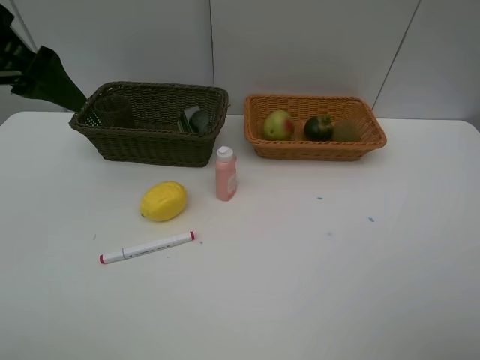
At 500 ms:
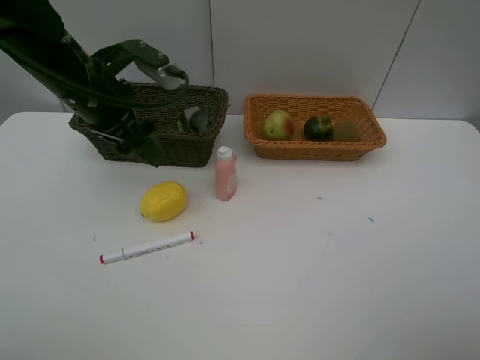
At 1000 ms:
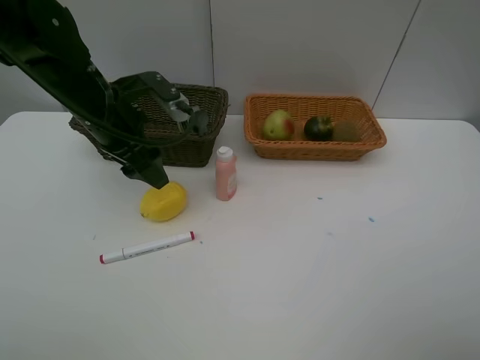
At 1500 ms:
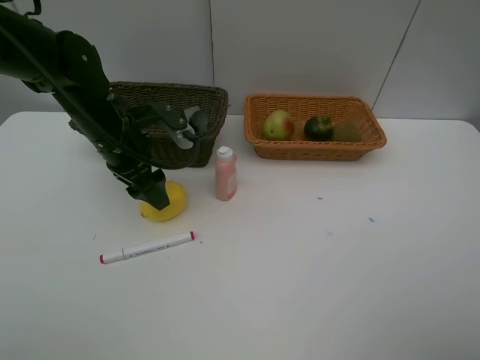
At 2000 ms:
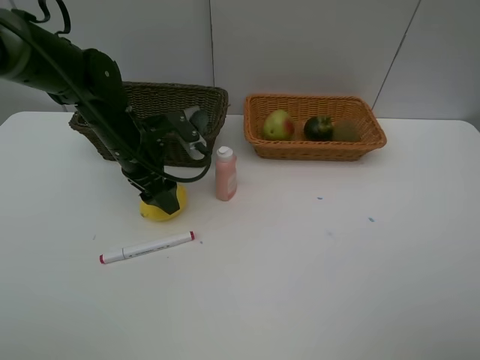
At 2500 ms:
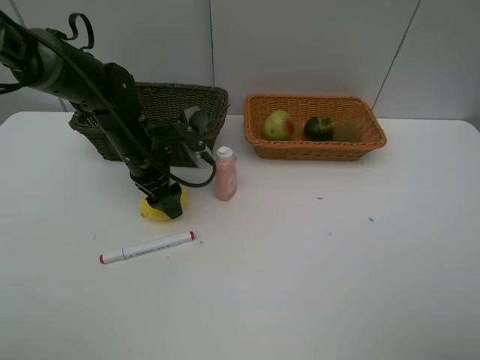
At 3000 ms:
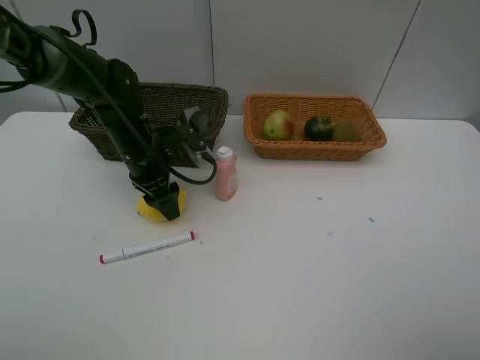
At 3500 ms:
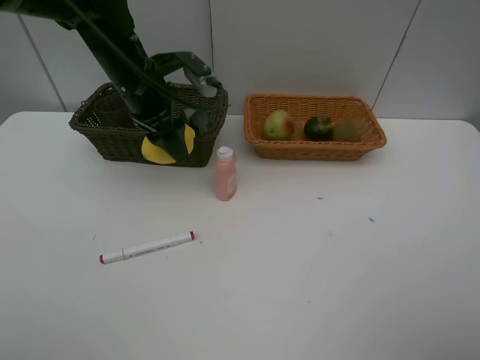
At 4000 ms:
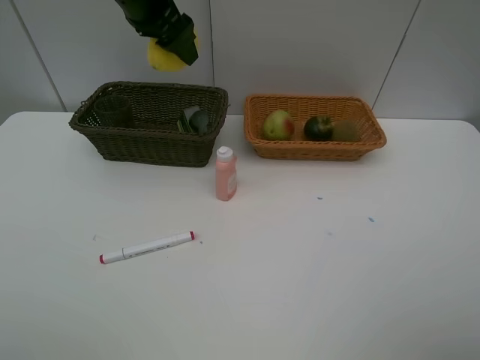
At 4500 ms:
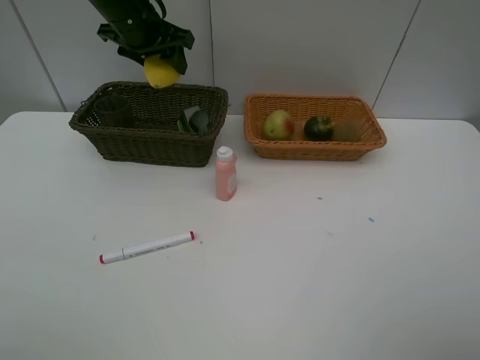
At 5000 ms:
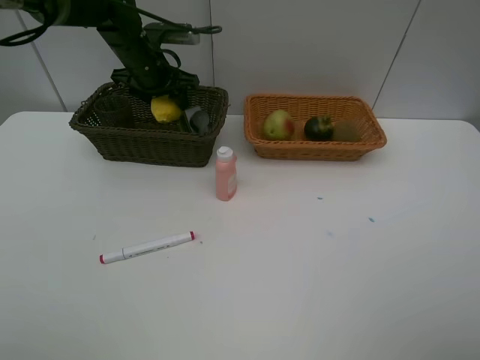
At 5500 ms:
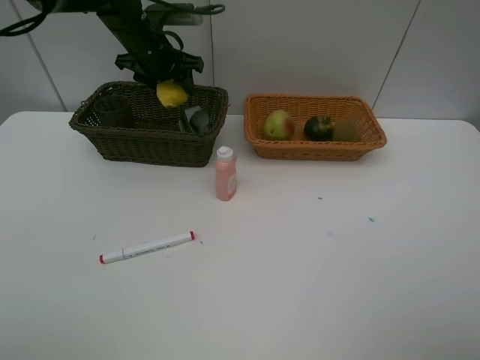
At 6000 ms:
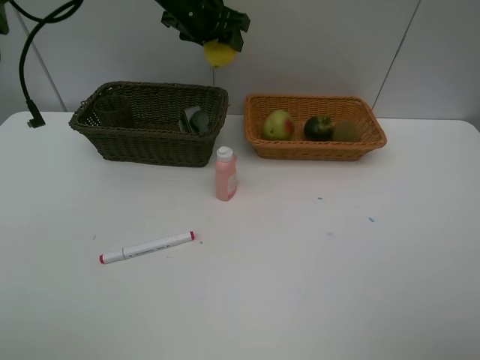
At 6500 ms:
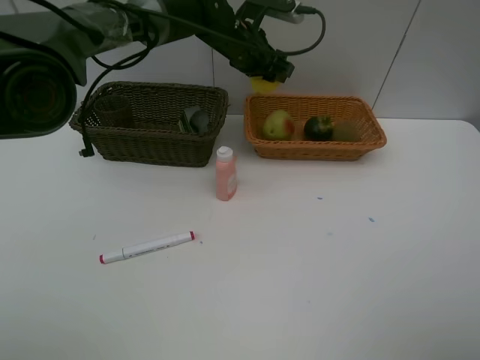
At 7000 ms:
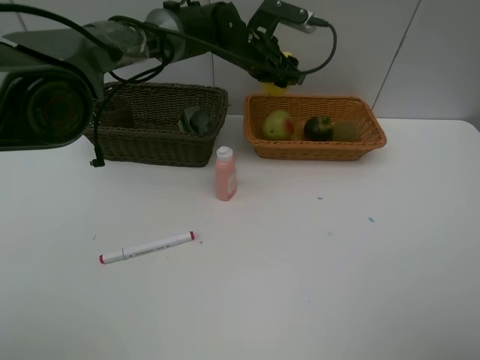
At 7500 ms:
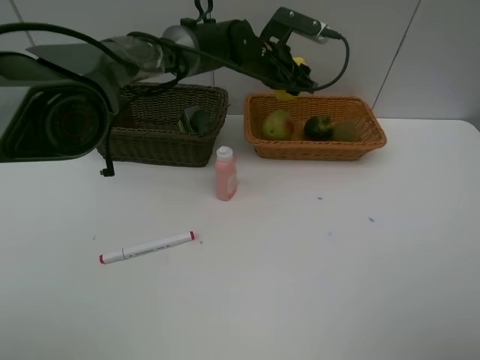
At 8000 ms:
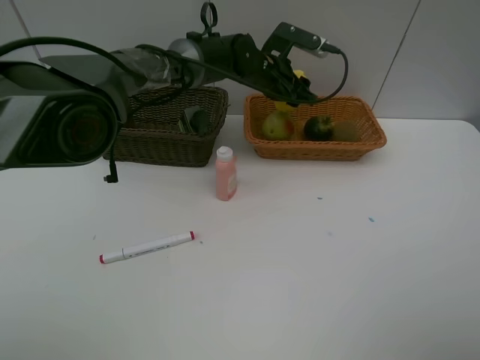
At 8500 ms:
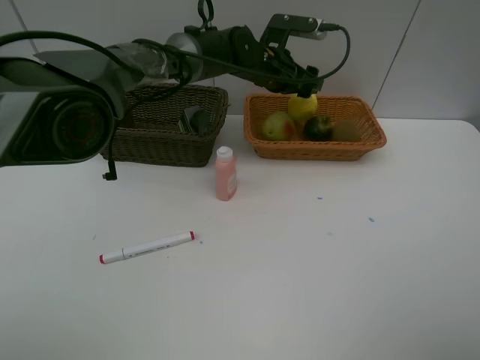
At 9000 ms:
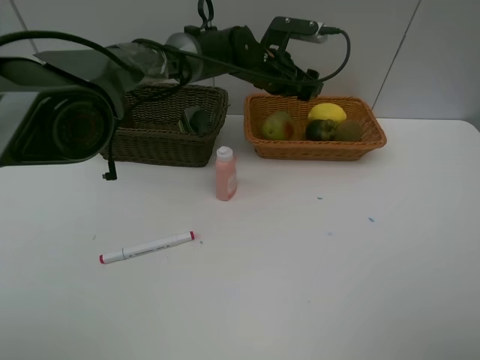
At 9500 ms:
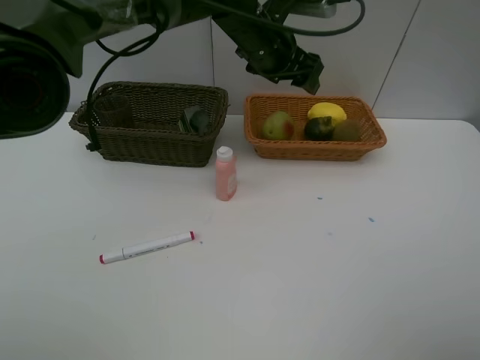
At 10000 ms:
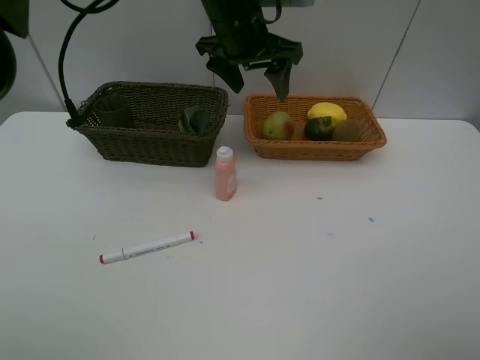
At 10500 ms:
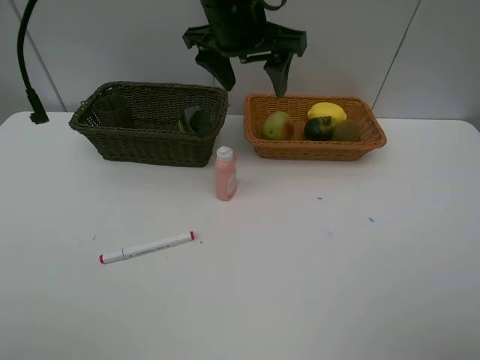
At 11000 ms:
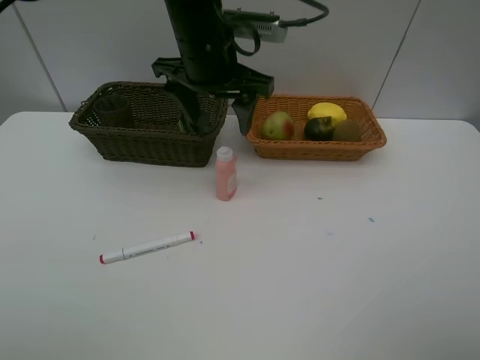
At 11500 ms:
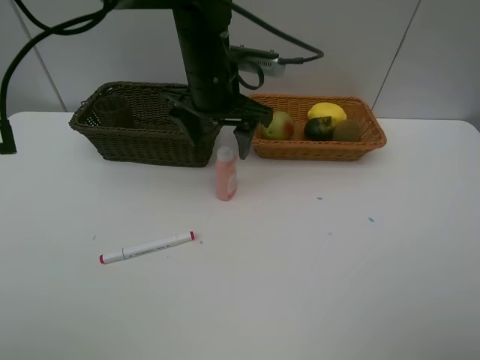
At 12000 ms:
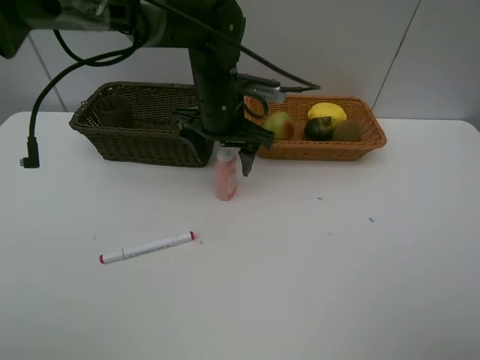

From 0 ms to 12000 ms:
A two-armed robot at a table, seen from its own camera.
Task of the whole recording: Place multiple objects separately in different baskets.
Step, from 0 ms to 3000 ms: Pick up the lemon with left gripper.
Step, from 3500 ms to 9000 ms: Place the lemon in the light basket with left gripper.
From 0 ms to 2000 ms: The left gripper shifts about 20 cm downward and to the right.
From 2000 ms to 4000 ms: The left gripper heads upward and forward, covering roughly 20 cm.
From 4000 ms to 6000 ms: The left gripper heads forward, to the right and downward, covering approximately 10 cm.
From 6000 ms to 8000 ms: The left gripper shifts about 15 cm to the right and downward.
From 8000 ms to 10000 ms: The left gripper is displaced upward and backward by about 15 cm.
From 10000 ms to 12000 ms: The left gripper travels downward by some 10 cm.

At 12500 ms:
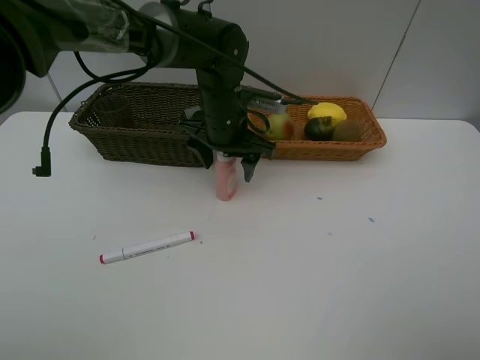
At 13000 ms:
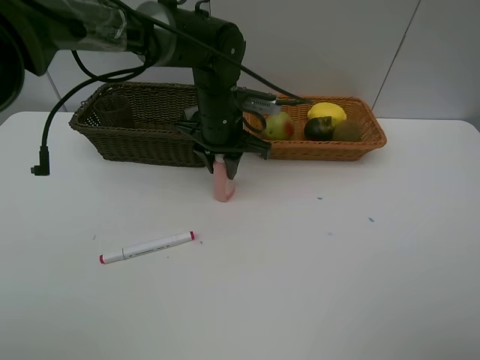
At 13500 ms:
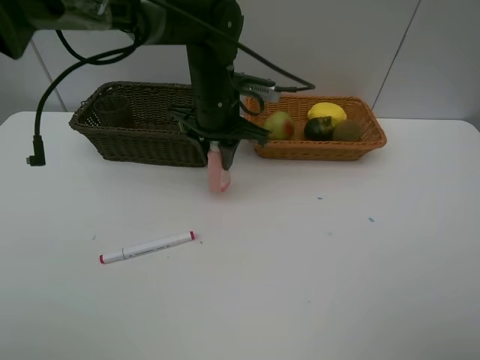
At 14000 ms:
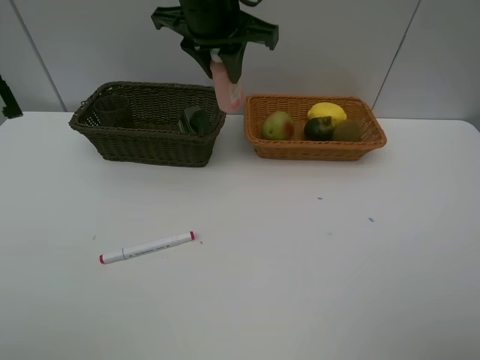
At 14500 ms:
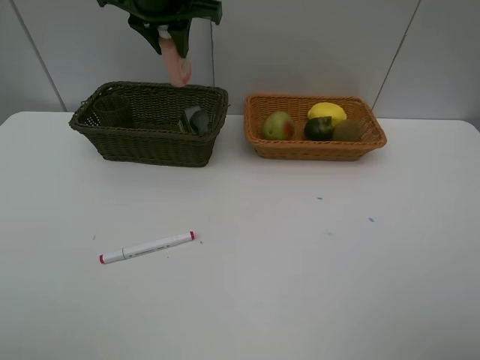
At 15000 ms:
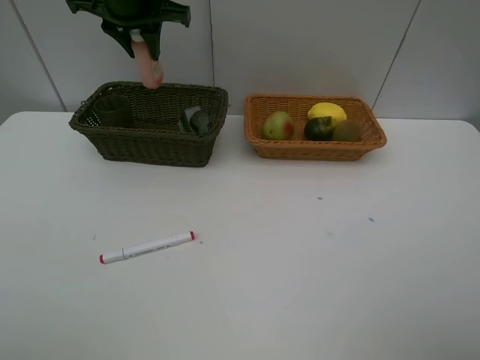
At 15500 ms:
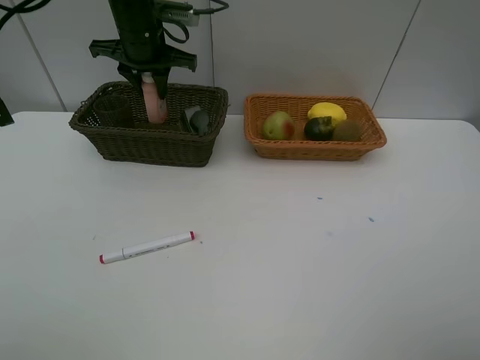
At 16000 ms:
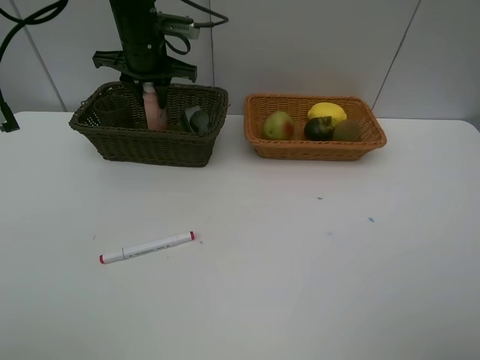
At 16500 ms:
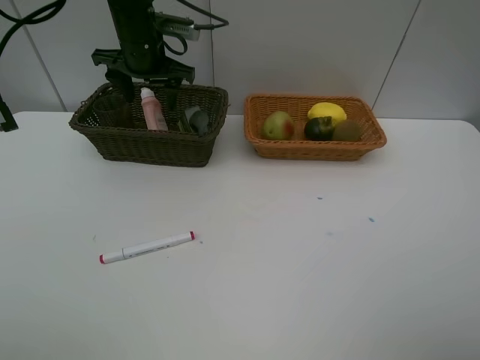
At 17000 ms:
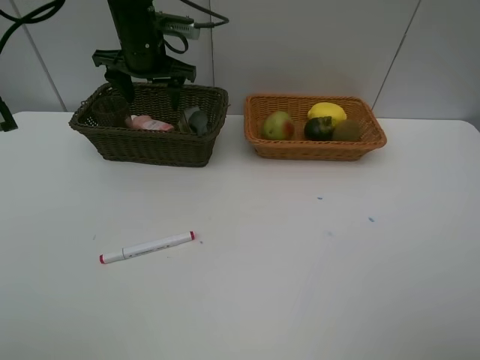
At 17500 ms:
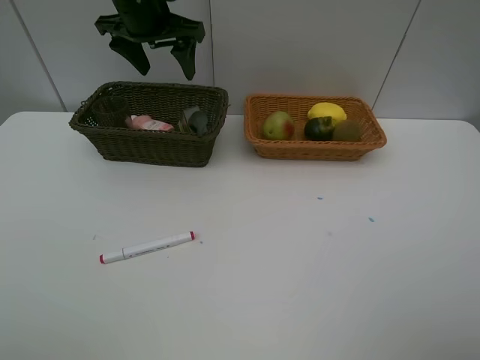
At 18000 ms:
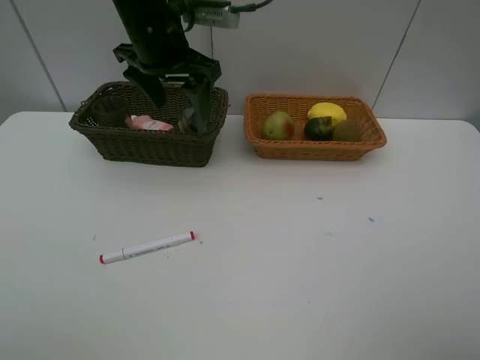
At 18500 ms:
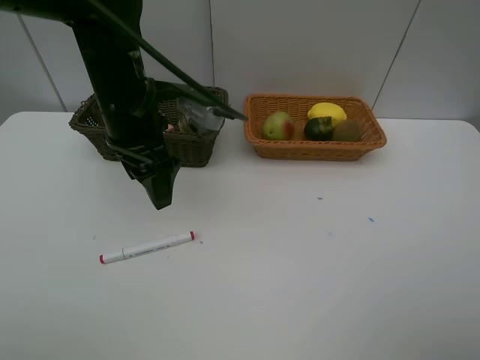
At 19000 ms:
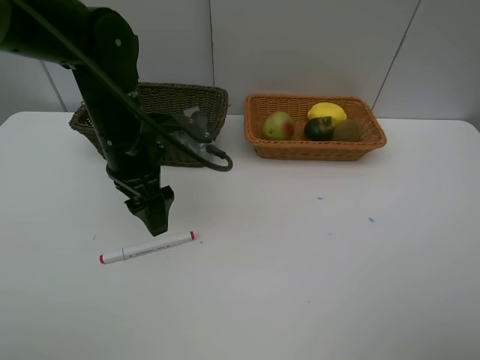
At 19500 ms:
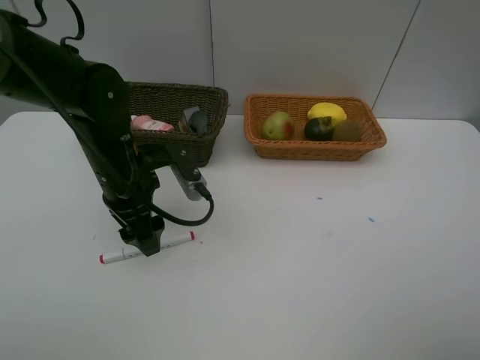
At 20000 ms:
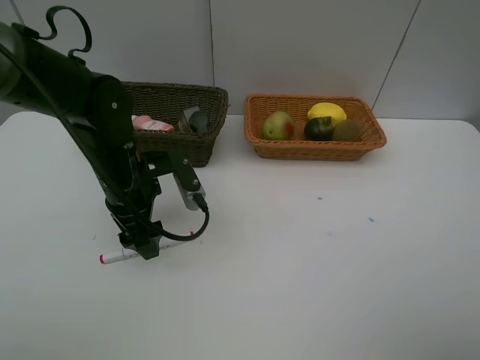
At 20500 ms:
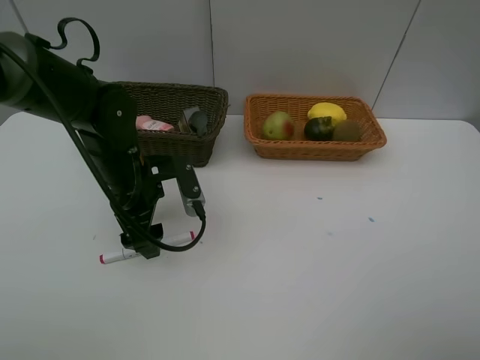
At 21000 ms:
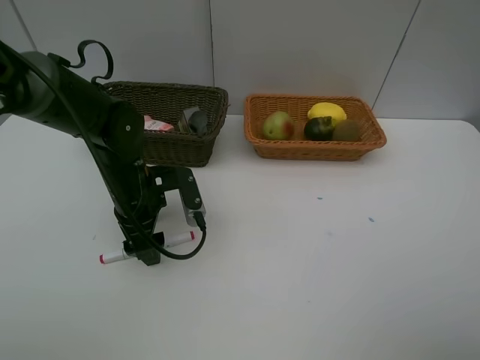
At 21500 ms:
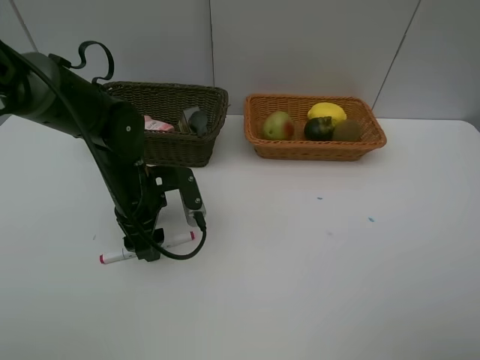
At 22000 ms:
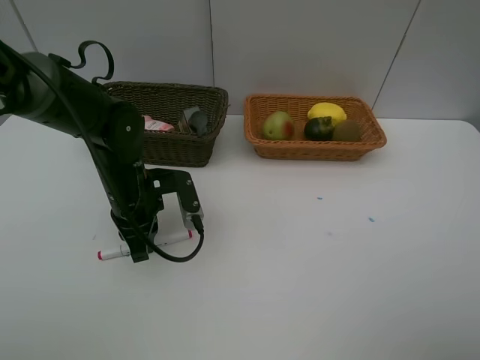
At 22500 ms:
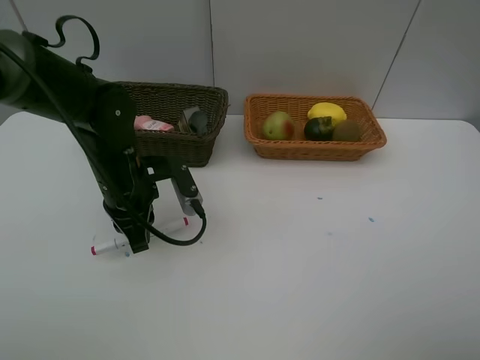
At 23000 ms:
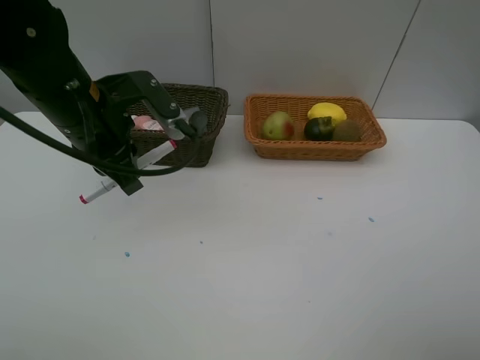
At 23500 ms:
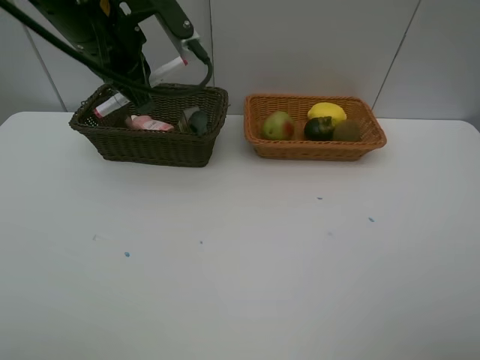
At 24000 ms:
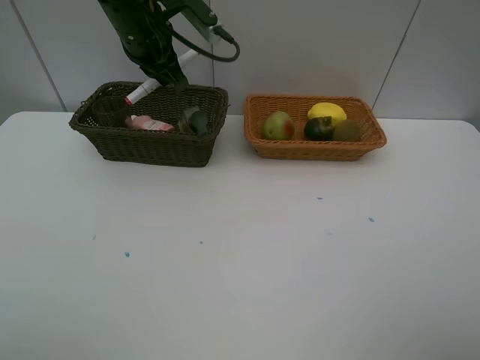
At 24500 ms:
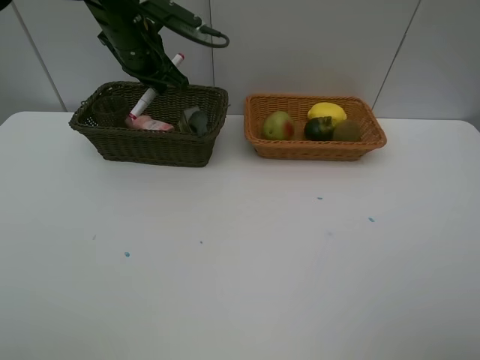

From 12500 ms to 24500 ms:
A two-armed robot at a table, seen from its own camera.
Task of the whole recording: Place multiple objects separately in different baskets.
Step, from 14000 ms to 16500 ms: Place the laundry detergent in the dark basket with left gripper.
Step, from 17000 ms to 22500 ms: Pick up the red marker with left gripper.
From 12500 ms to 14500 ms: The left gripper travels upward and to the left by some 20 cm, and closes up.
From 14500 ms to 16500 ms: The left gripper goes roughly 10 cm downward, and opens up.
From 16500 ms to 18500 ms: The left gripper is displaced backward by approximately 15 cm.
From 18500 ms to 20500 ms: The left gripper is displaced downward by roughly 10 cm.
From 20500 ms to 22500 ms: The left gripper closes up.
From 22500 ms to 24500 ms: The left gripper goes some 20 cm forward and upward.

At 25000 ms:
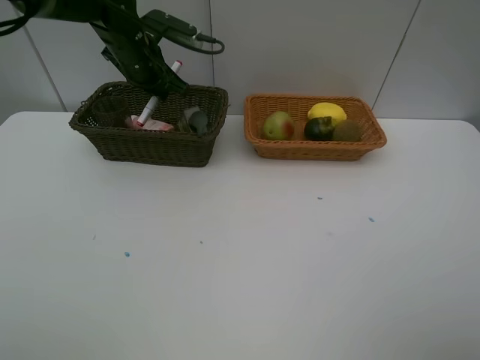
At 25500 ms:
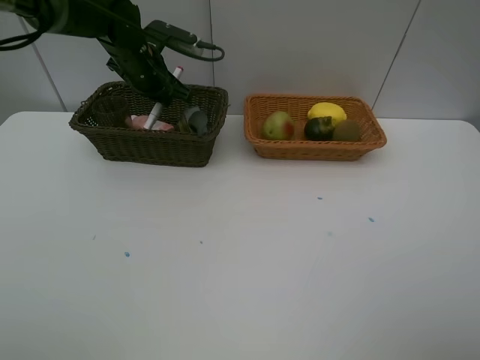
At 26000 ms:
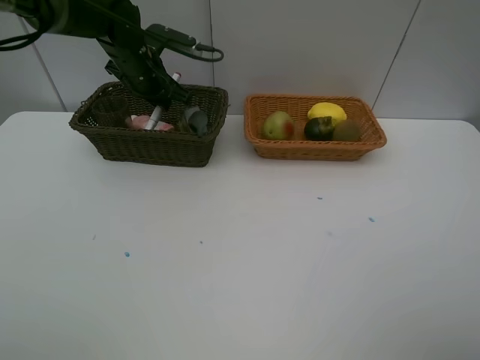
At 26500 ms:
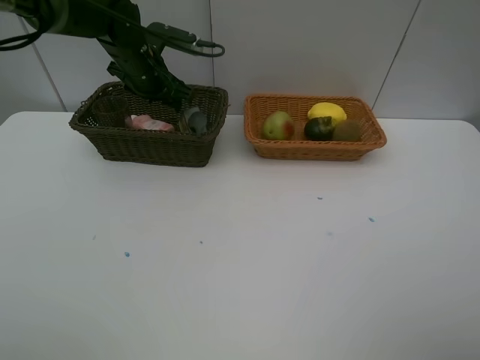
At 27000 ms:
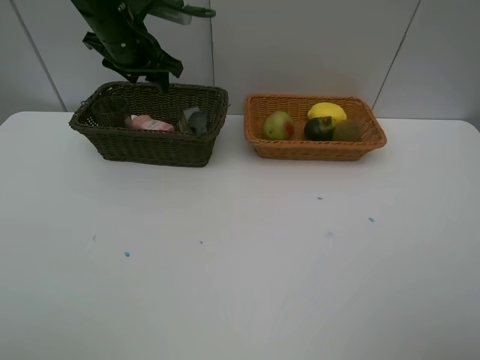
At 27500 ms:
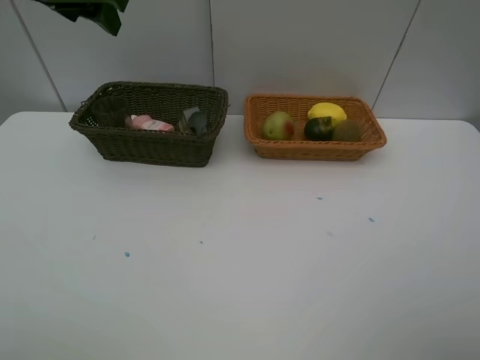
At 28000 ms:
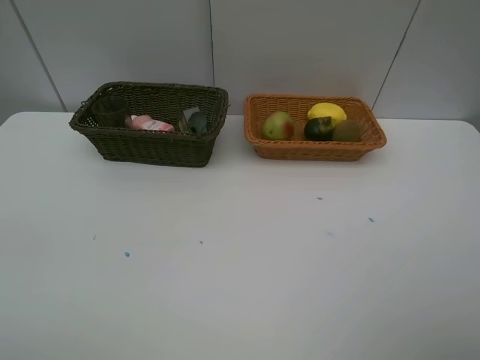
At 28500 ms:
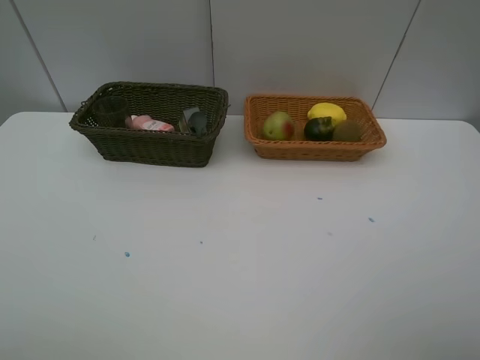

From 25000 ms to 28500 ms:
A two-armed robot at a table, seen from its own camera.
Task of the whole recording: Place multiple objects separately in different baskets.
From 25000 ms to 27000 ms: The left gripper changes place by about 5 cm, and opens.
From 27000 ms to 28500 ms: The left gripper heads backward, covering approximately 40 cm.
